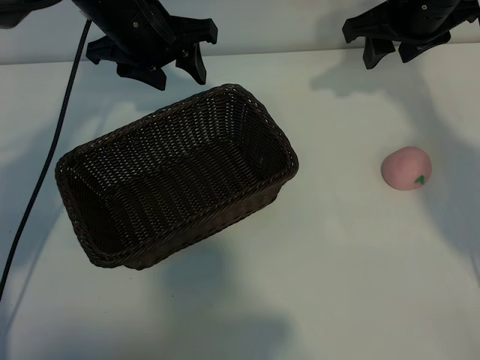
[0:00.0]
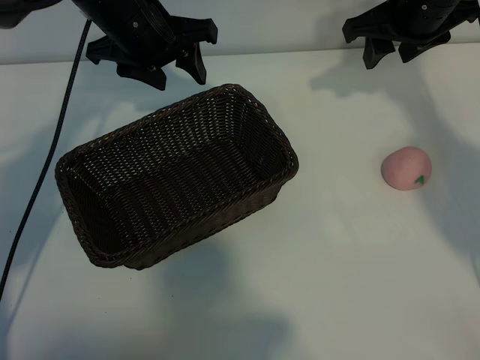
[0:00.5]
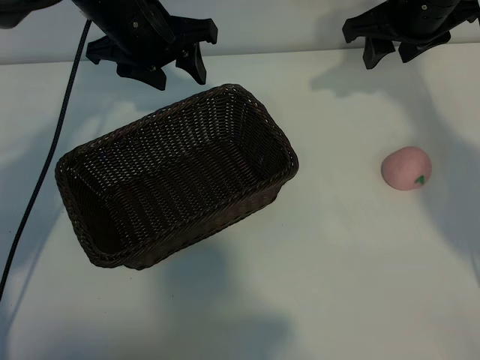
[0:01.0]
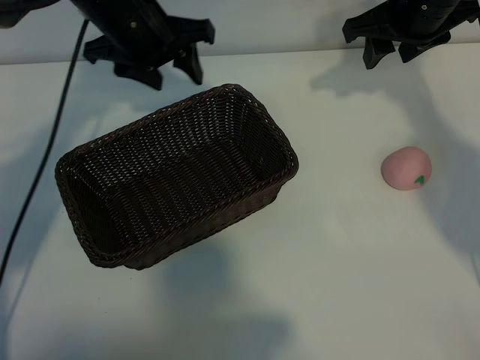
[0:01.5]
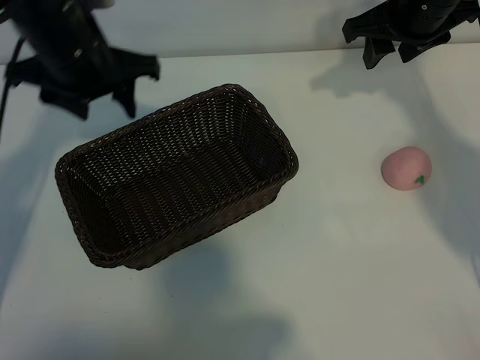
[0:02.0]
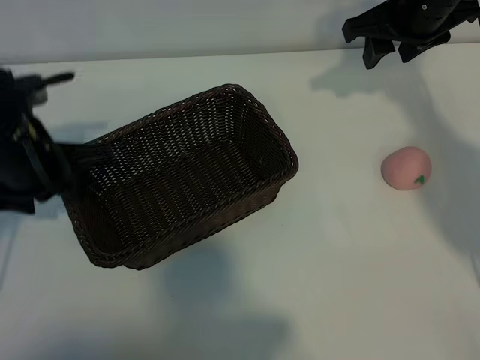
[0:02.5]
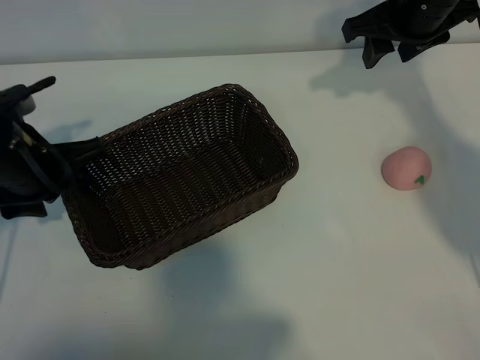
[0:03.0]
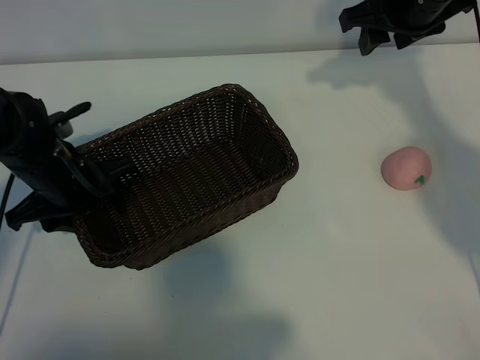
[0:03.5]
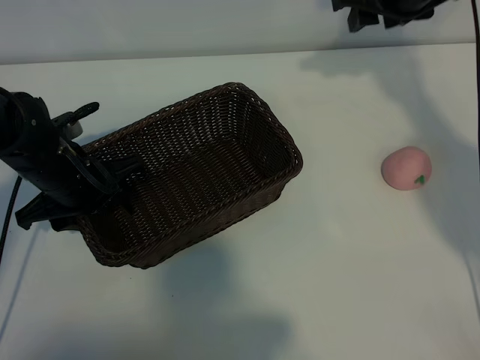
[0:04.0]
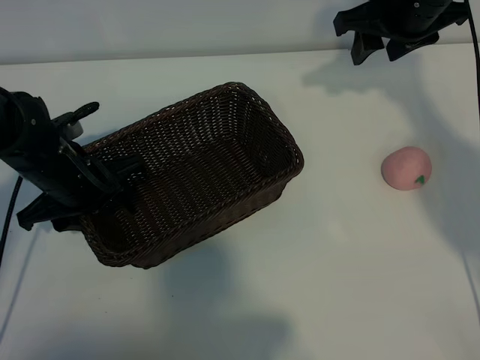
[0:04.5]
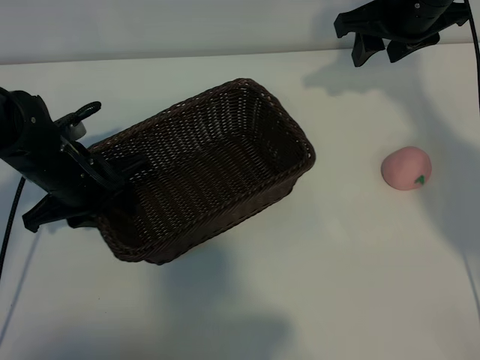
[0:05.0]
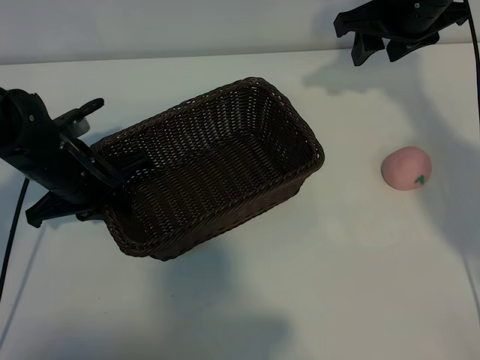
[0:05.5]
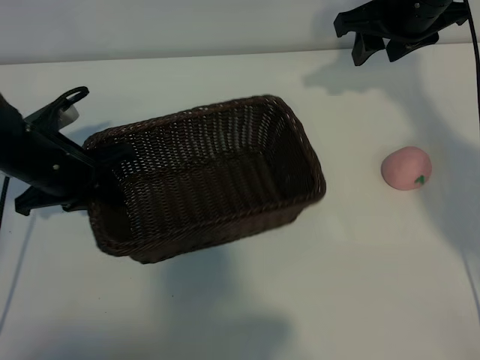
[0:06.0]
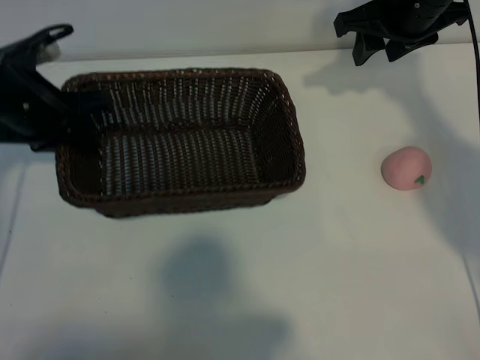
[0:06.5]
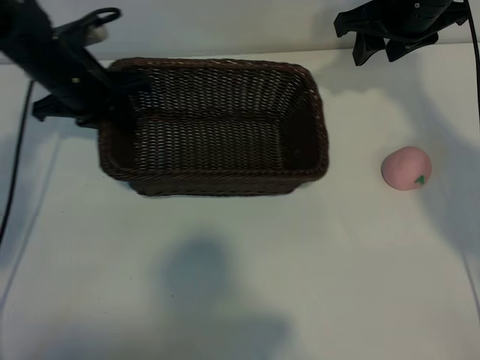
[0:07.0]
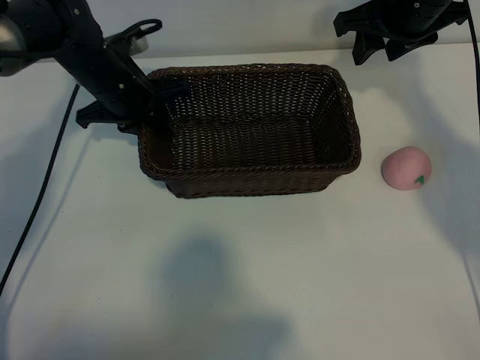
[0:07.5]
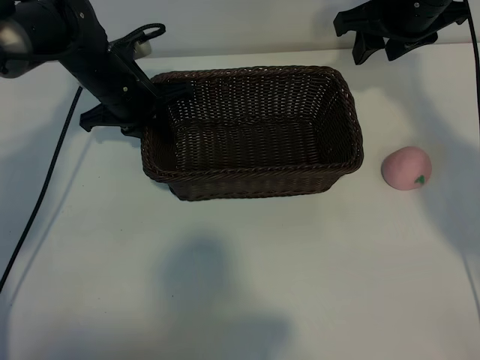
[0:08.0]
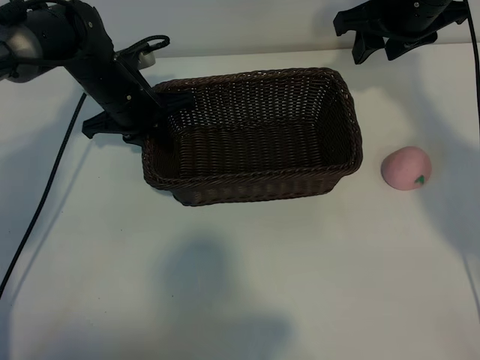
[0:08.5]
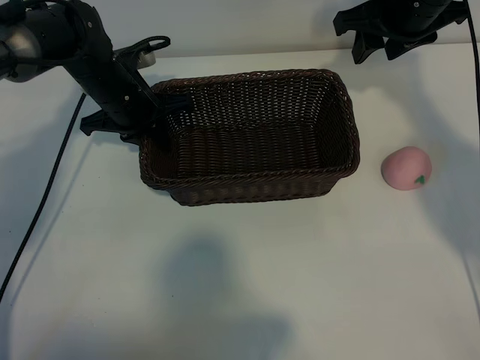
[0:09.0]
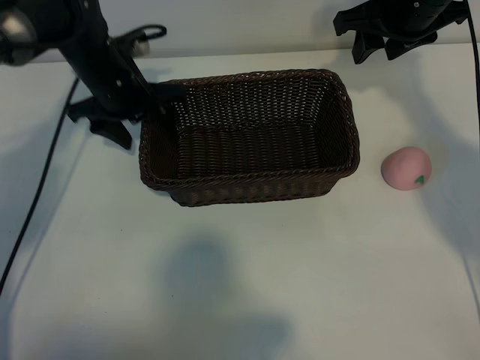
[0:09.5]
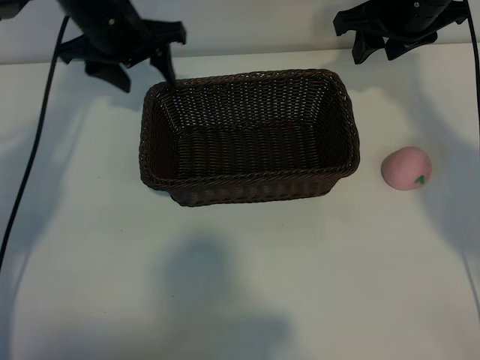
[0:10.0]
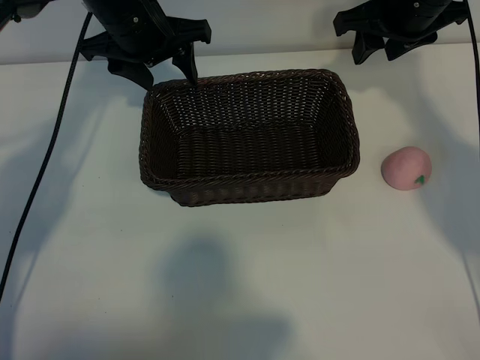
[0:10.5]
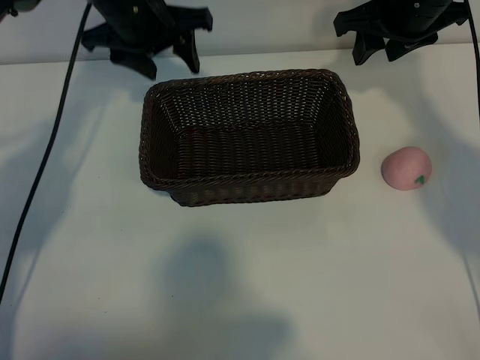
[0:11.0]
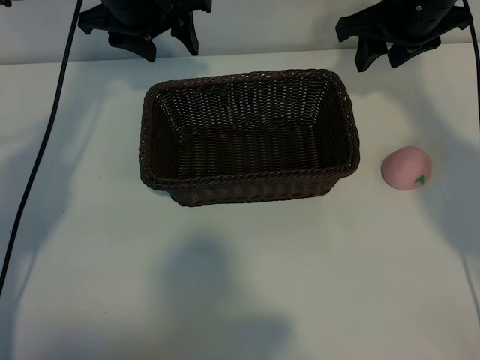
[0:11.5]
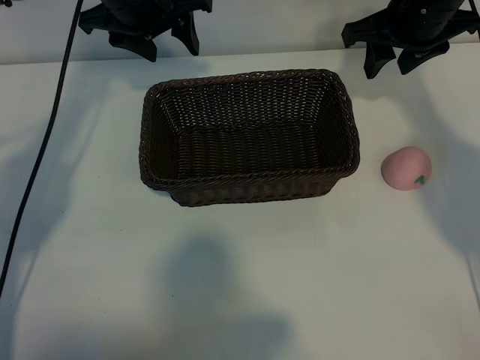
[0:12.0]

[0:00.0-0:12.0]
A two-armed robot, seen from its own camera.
Task of the whole recording: pick up the peach and put it into the basket.
Step, 0:01.5 to 0:05.0: Grasp the basket with left gripper.
Step, 0:05.5 to 0:09.0: Place the basket in the center of view with left gripper.

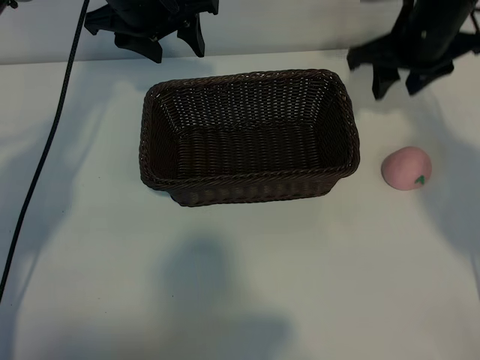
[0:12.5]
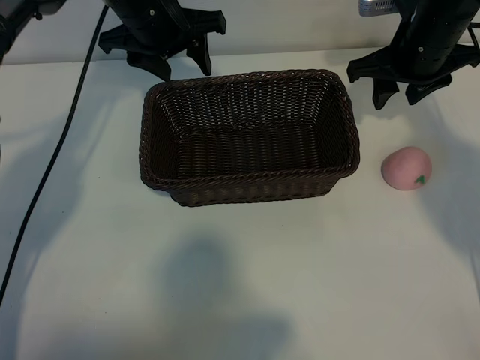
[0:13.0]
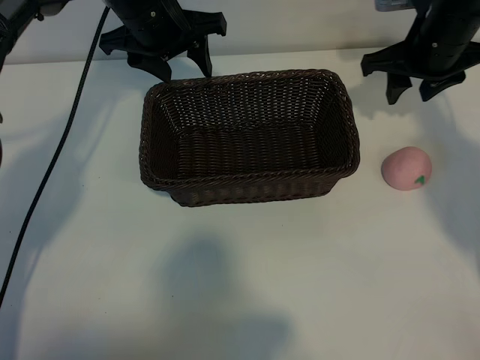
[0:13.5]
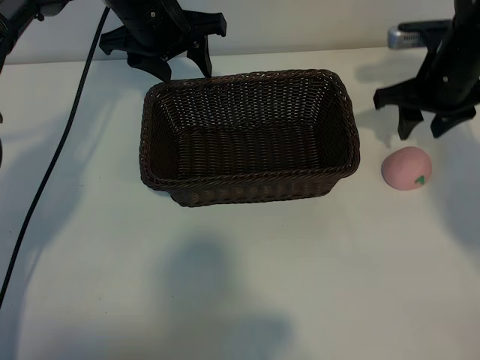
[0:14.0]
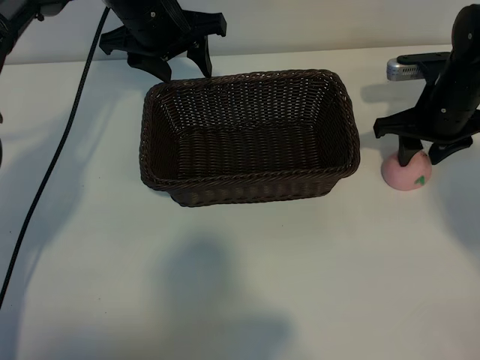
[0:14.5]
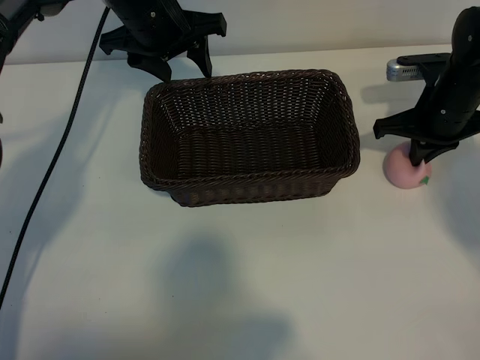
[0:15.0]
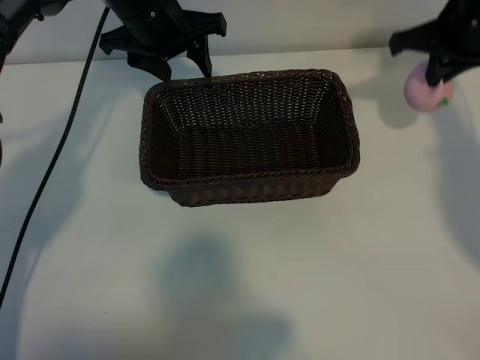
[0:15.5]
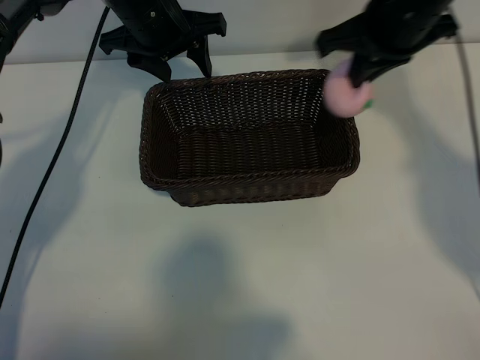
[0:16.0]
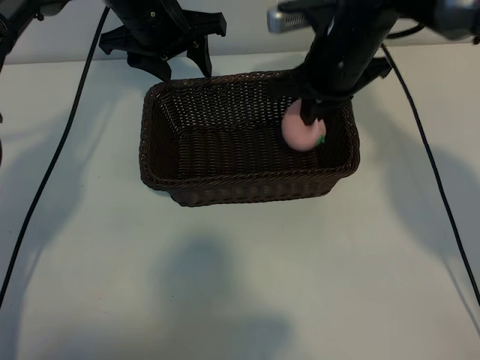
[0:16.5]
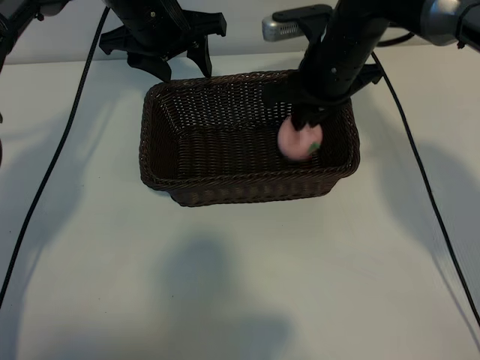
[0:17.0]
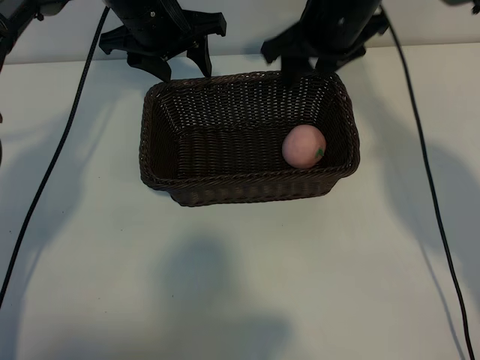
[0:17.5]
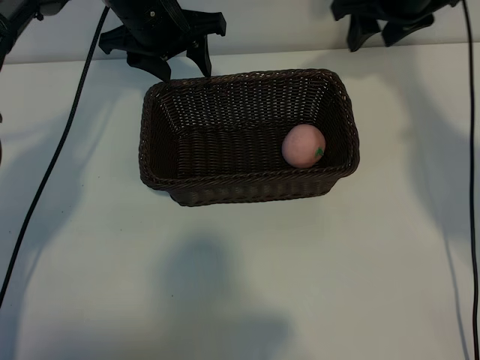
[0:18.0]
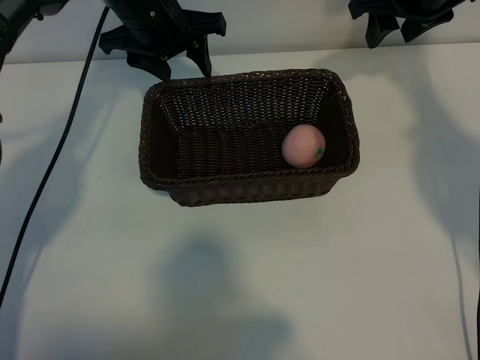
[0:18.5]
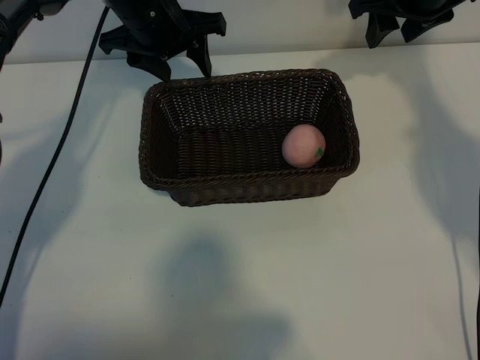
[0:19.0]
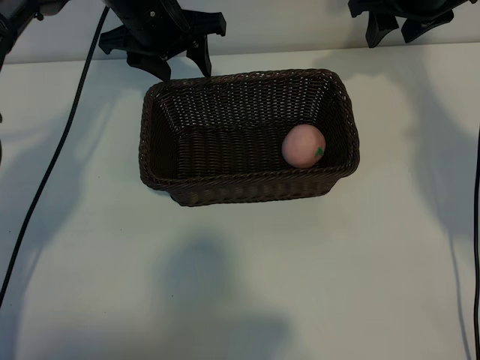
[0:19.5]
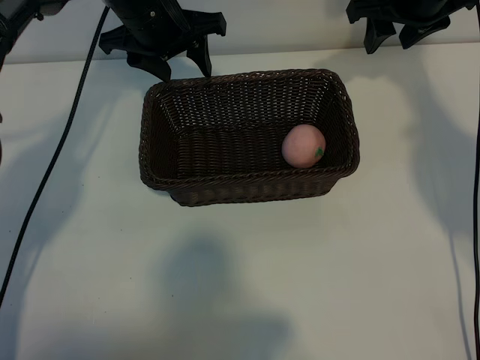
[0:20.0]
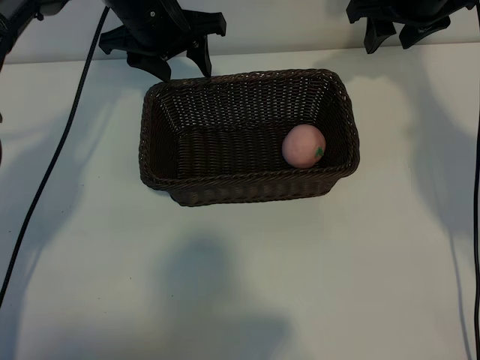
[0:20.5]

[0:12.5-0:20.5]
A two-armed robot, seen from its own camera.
Task of the whole recording: pick up the peach and put it into the basket.
Step, 0:12.5 to 0:15.0: Grasp the peach with right gripper.
Step, 0:15.5 to 0:17.0: Place the peach in the basket with right gripper.

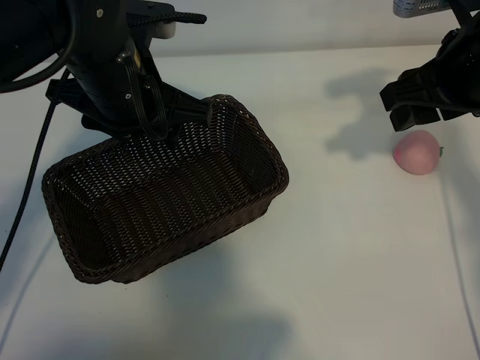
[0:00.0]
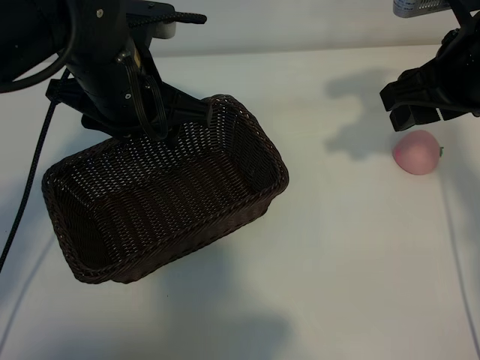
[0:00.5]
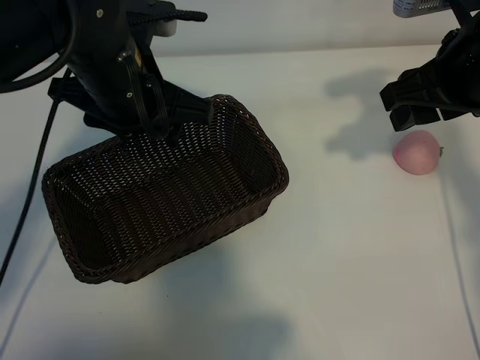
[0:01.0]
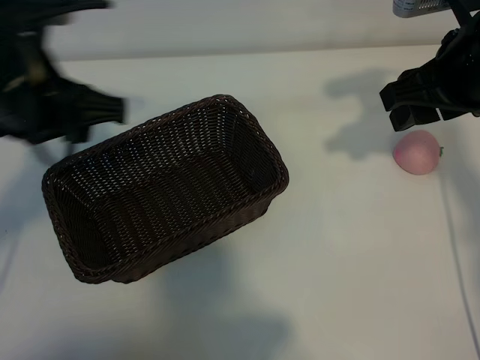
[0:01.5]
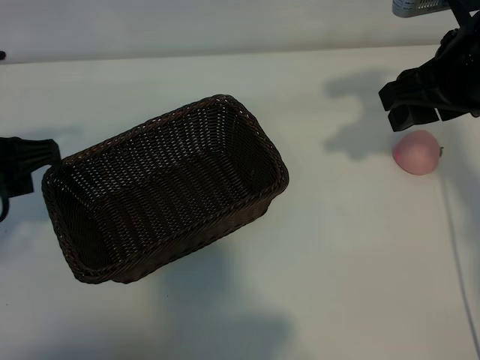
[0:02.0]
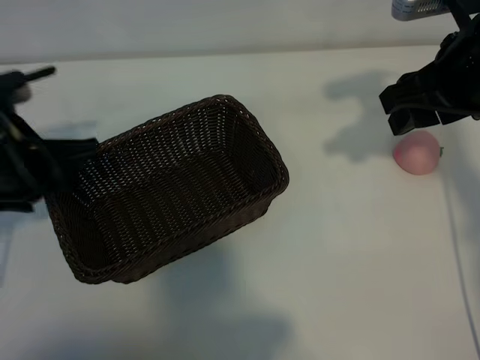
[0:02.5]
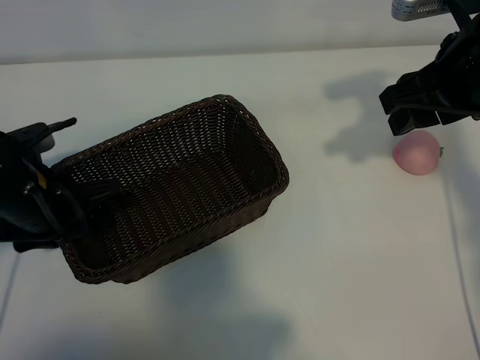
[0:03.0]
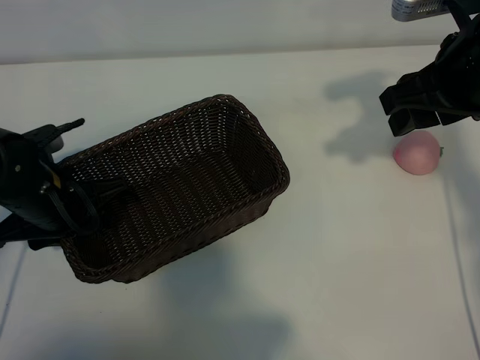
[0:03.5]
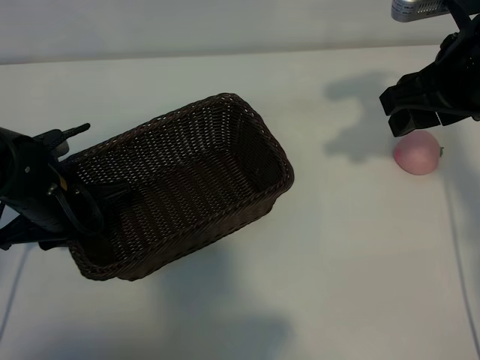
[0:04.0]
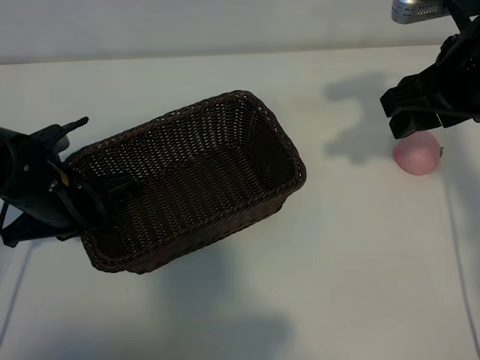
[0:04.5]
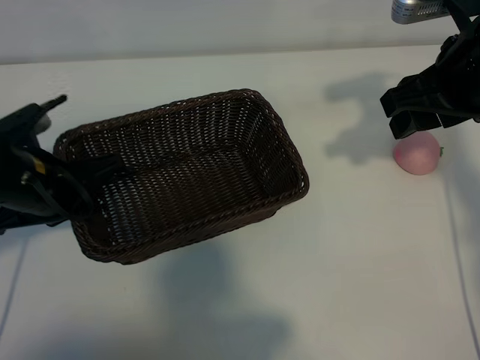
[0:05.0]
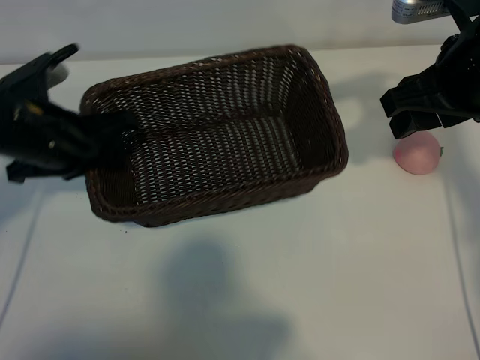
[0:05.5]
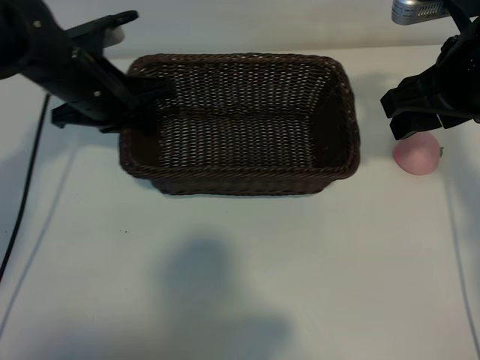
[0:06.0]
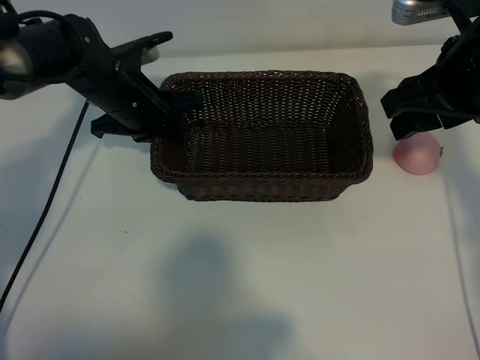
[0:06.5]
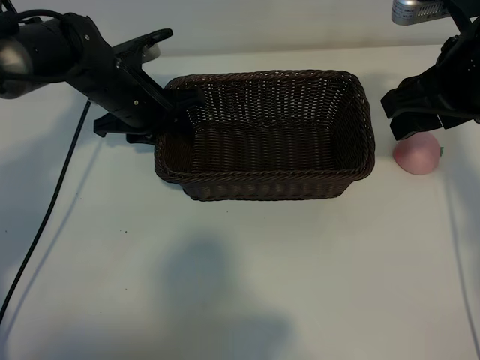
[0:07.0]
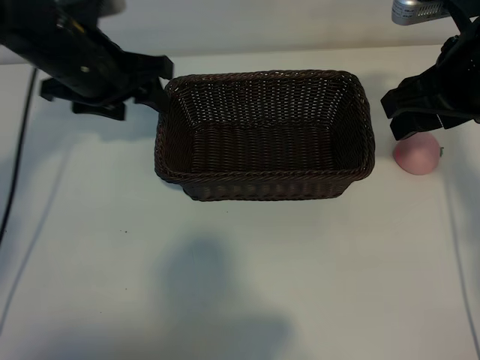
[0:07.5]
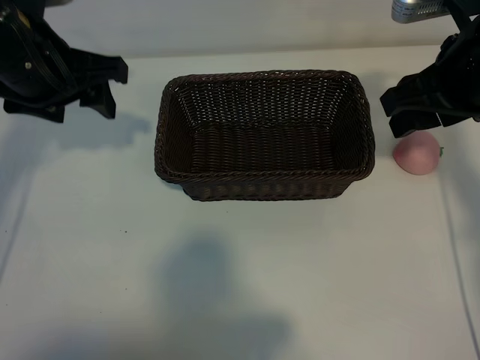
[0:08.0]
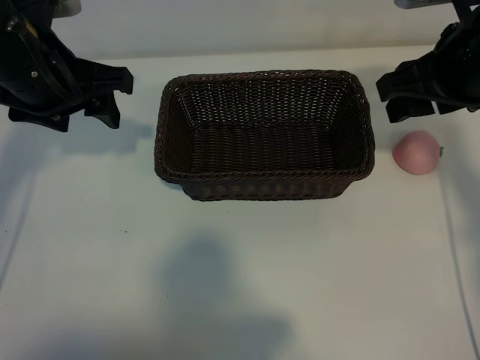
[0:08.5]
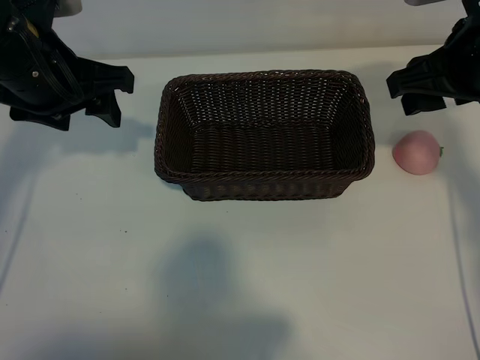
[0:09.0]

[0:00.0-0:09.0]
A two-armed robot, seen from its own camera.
Task of the whole recording: pick up the peach and put it into the basket.
Step, 0:01.0 to 0:04.0: Grasp the basket with left gripper.
Step, 0:04.5 to 0:07.0: Place the basket in the center of view with left gripper.
